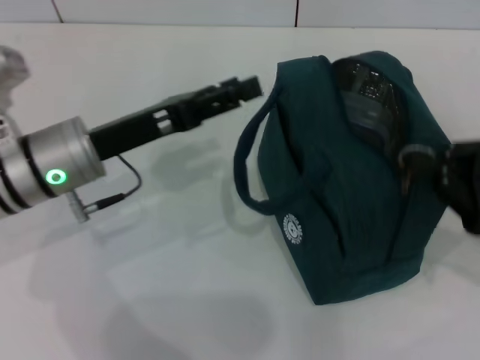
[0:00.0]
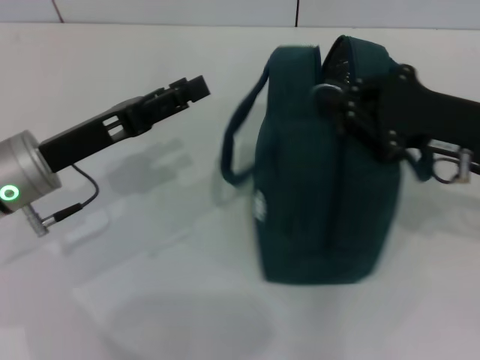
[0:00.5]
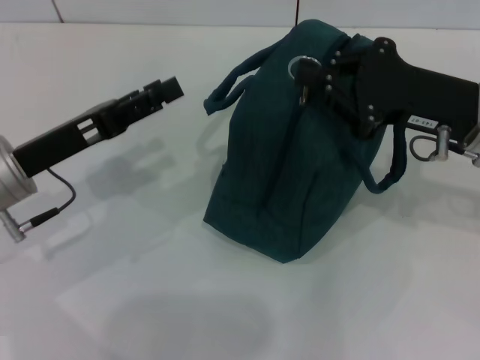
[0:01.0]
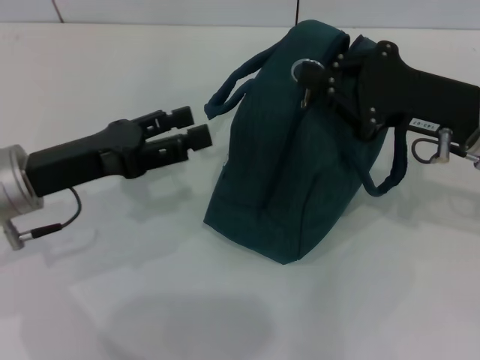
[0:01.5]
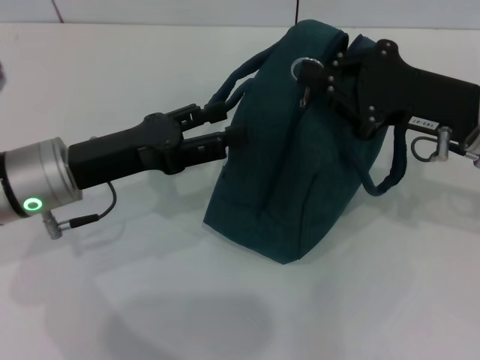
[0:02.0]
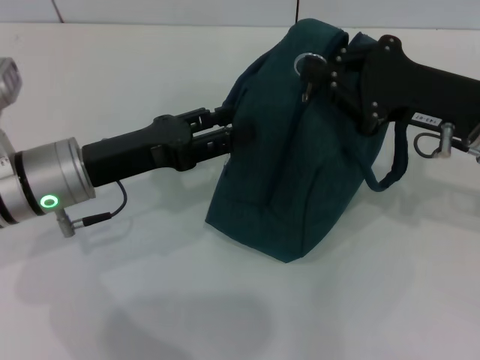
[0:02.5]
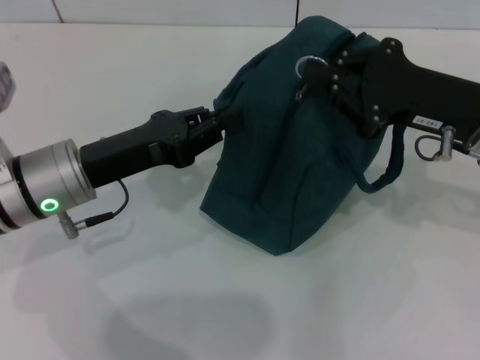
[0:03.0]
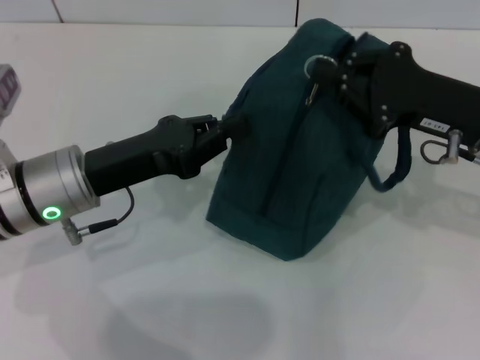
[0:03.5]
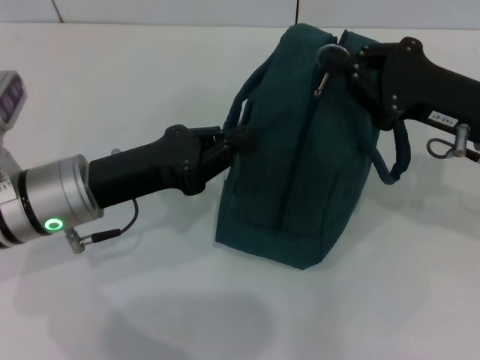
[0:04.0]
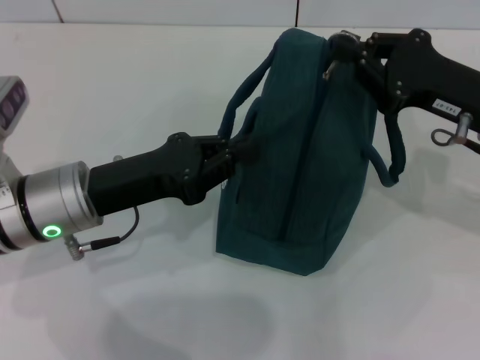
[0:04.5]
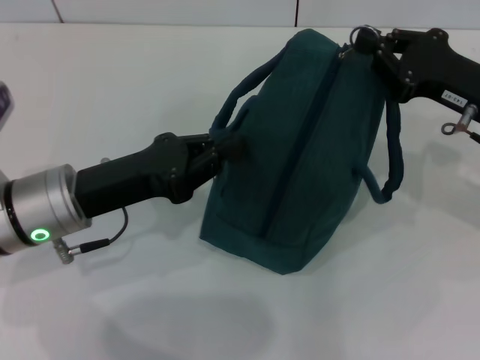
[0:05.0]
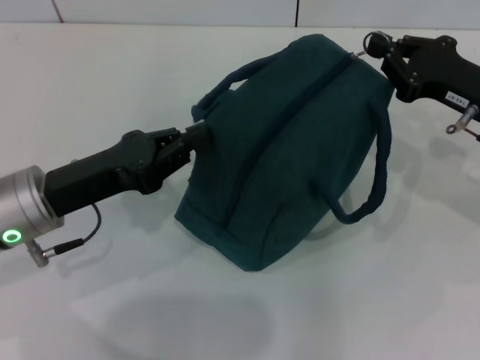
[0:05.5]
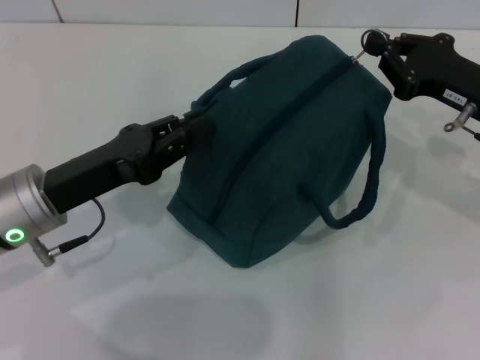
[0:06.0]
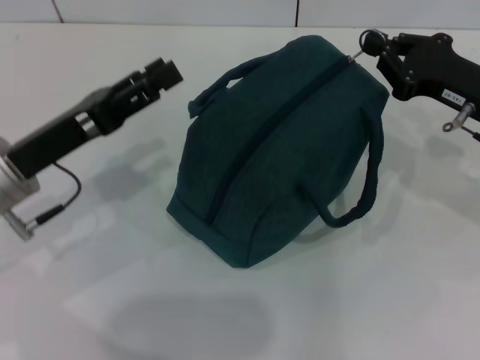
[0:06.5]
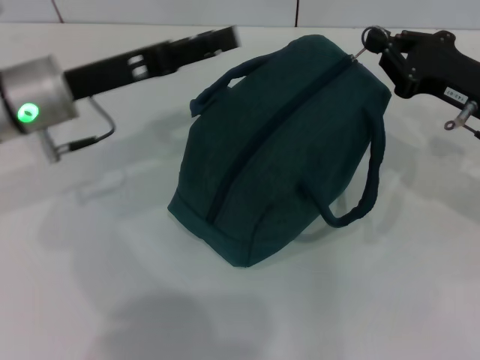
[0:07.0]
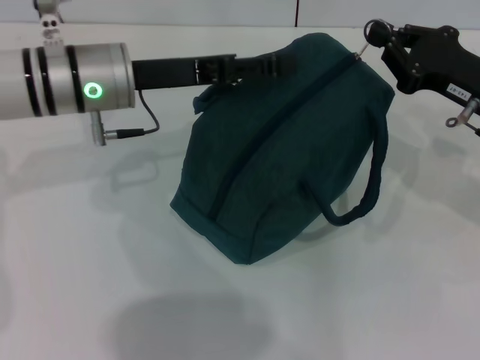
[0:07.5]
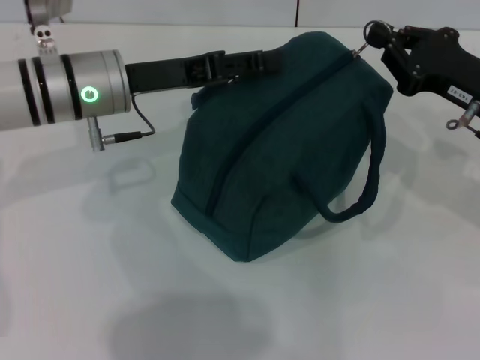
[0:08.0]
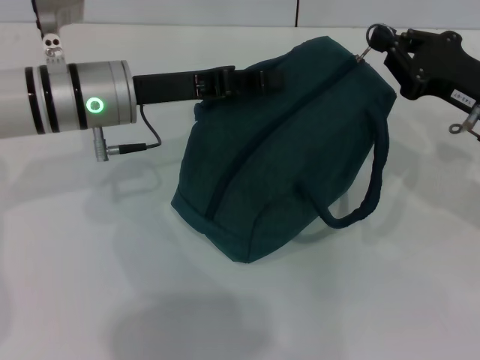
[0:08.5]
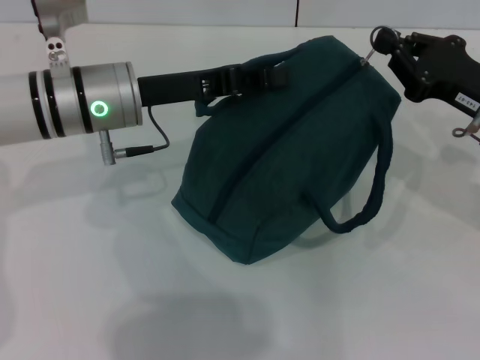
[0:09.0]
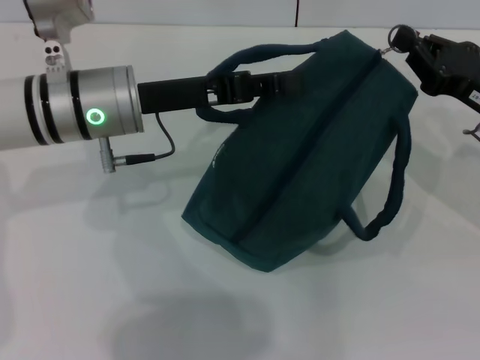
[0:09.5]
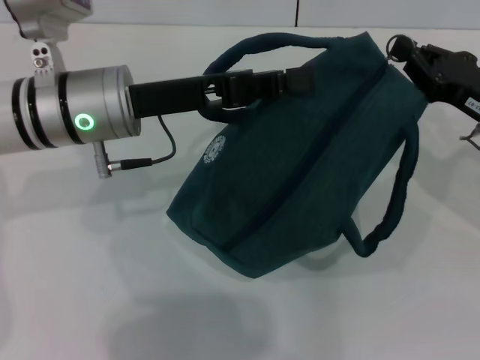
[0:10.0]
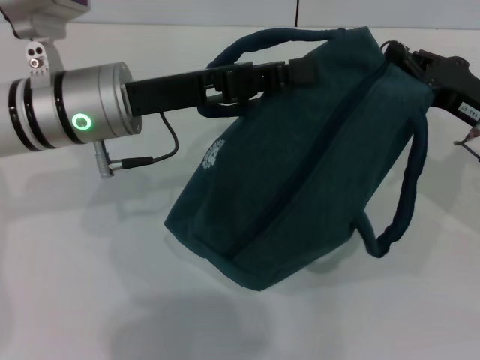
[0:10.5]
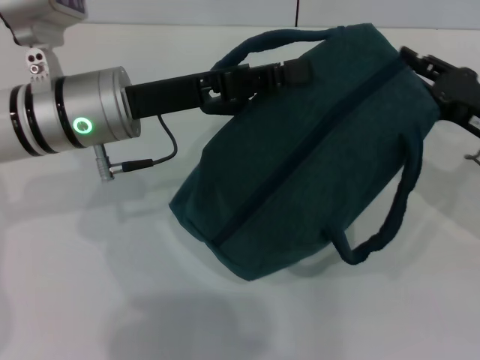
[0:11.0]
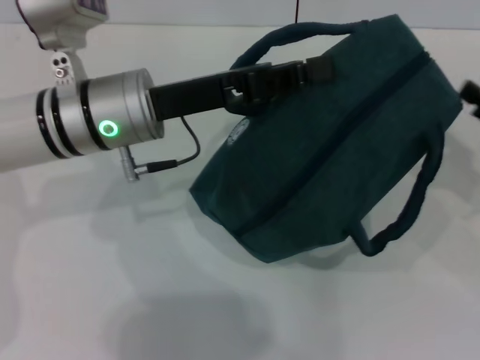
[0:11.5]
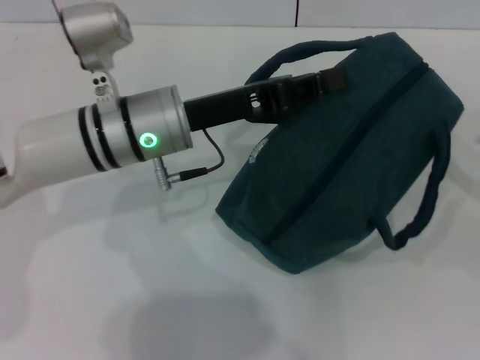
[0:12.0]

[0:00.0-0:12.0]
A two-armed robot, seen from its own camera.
Step, 0:00.0 to 0:11.0: Zip up the lunch bag with your right hand.
0:00.0 to 0:02.0: The right gripper moves to the left and forward, some 10 cm.
0:02.0 to 0:04.0: The left gripper closes up.
0:06.0 to 0:08.0: The left gripper is displaced forward by approximately 10 cm, and opens its fingers.
0:08.0 to 0:10.0: The left gripper closes up.
0:10.0 to 0:12.0: The left gripper moves roughly 5 cm. The right gripper shifts some 15 cm to the right and backward, and opens its fingers.

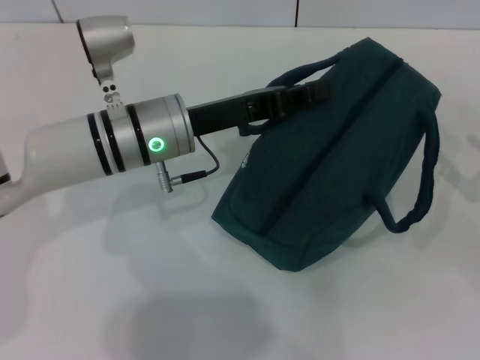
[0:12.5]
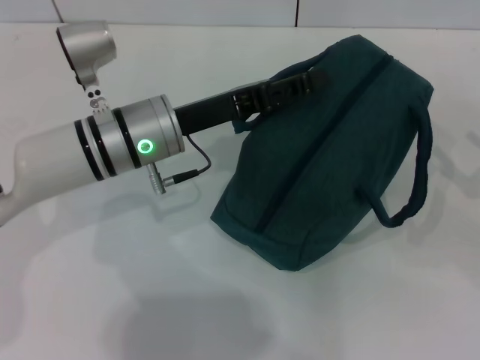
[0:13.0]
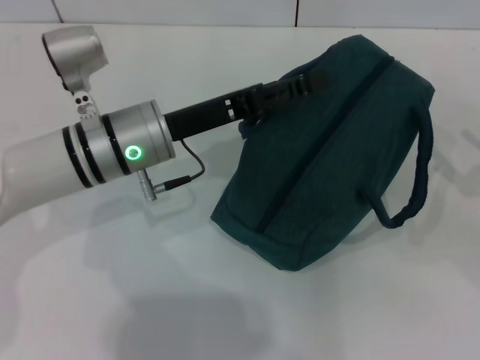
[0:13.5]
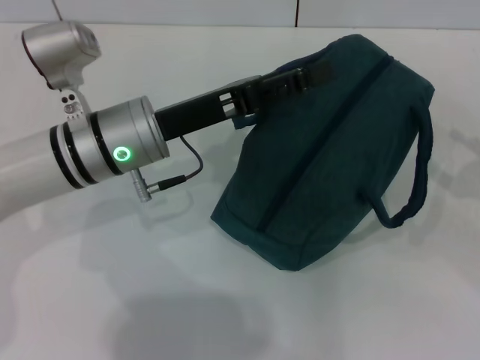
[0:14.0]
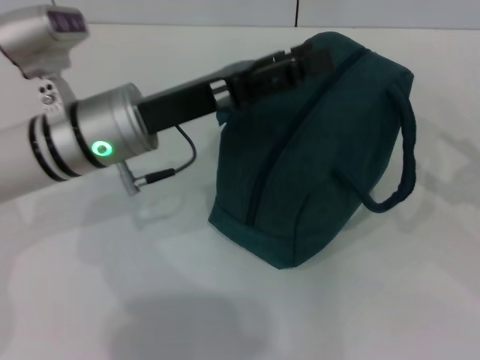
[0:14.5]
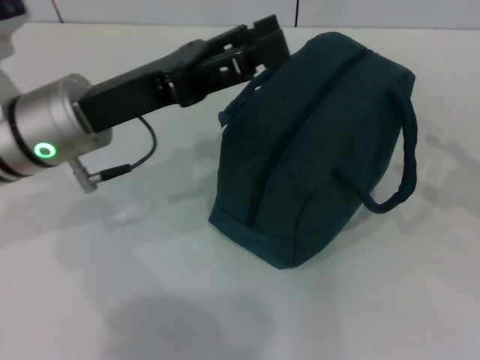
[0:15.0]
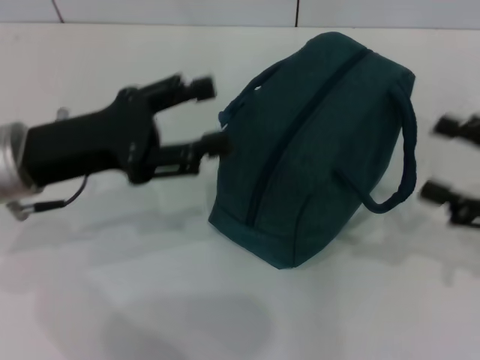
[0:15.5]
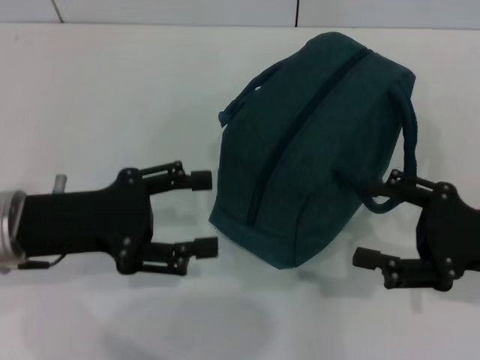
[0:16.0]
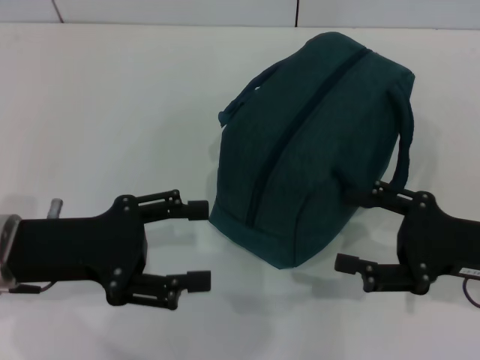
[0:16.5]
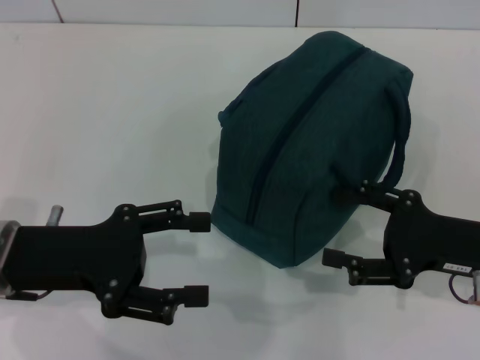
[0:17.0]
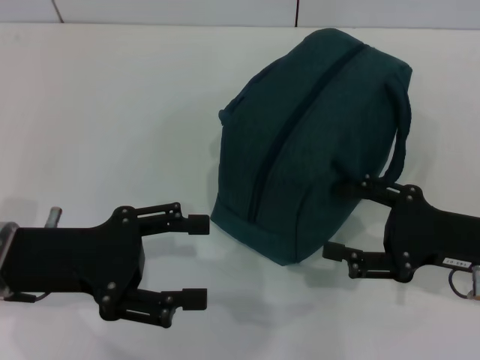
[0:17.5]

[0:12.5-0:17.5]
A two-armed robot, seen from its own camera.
0:12.5 to 0:15.0: The left gripper goes about 5 cm to the left, and opens up.
0:15.0 to 0:17.5: The right gripper is displaced to the left by roughly 10 cm. Meanwhile the left gripper heads backward and to the left, covering some 10 cm.
